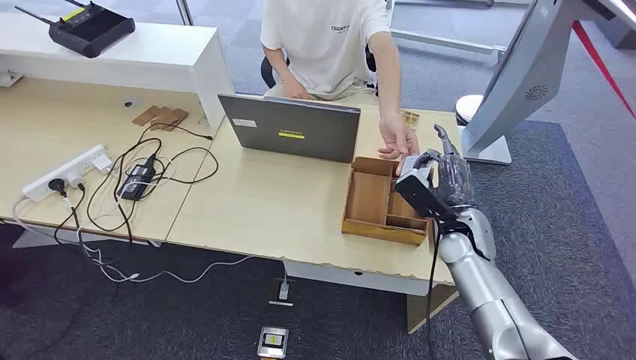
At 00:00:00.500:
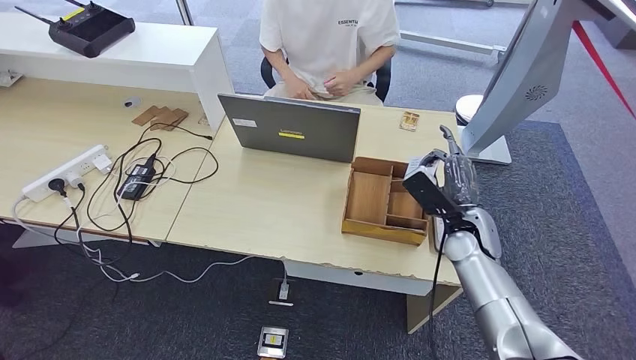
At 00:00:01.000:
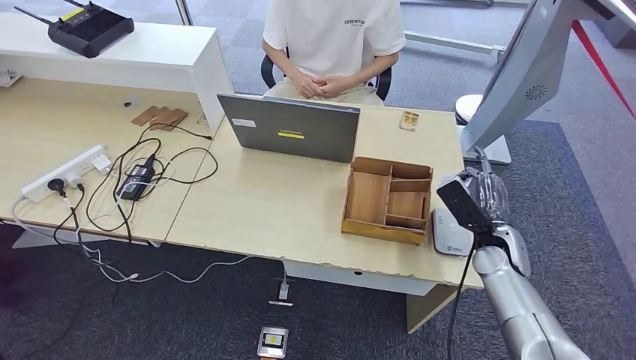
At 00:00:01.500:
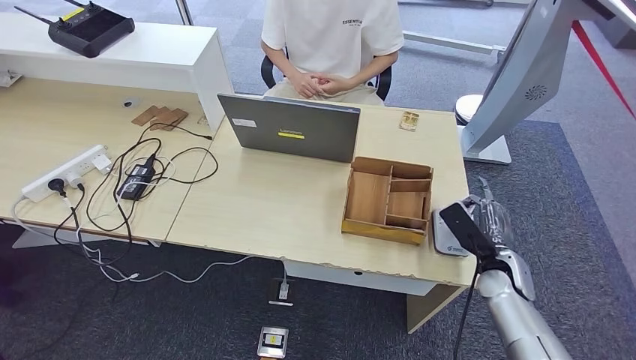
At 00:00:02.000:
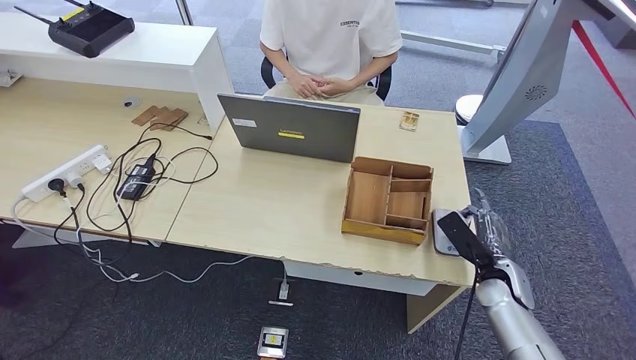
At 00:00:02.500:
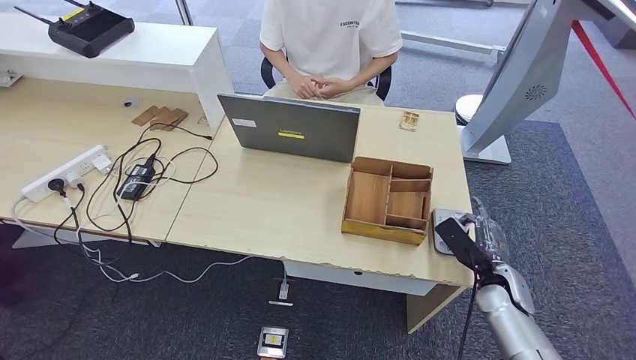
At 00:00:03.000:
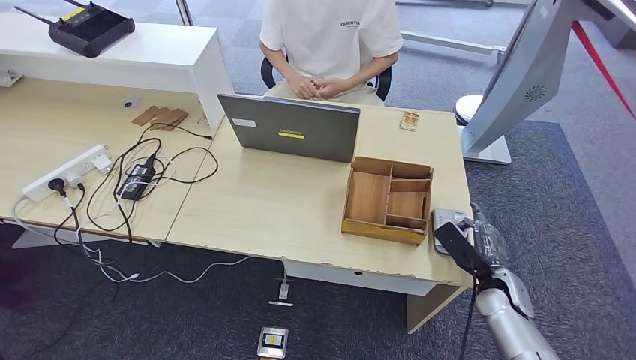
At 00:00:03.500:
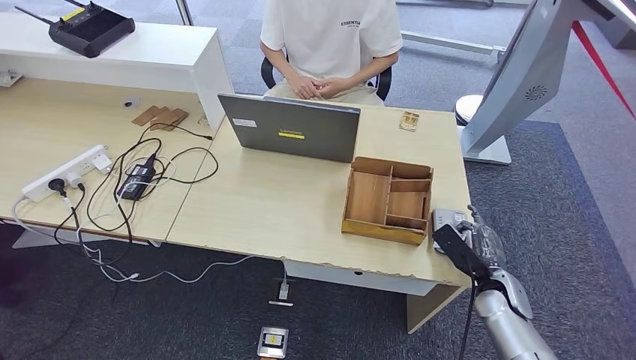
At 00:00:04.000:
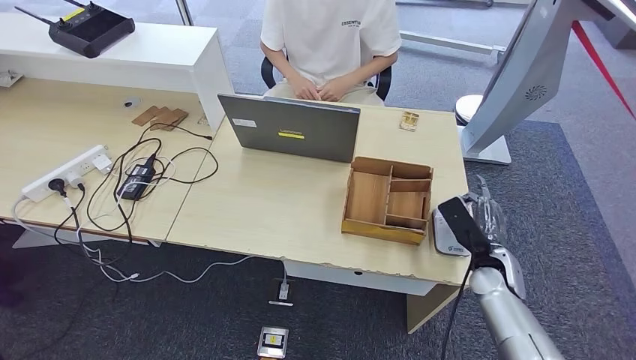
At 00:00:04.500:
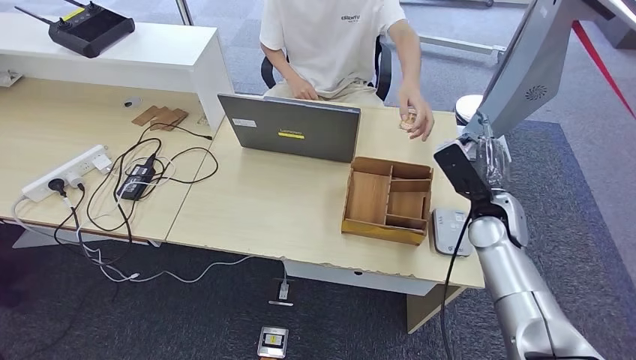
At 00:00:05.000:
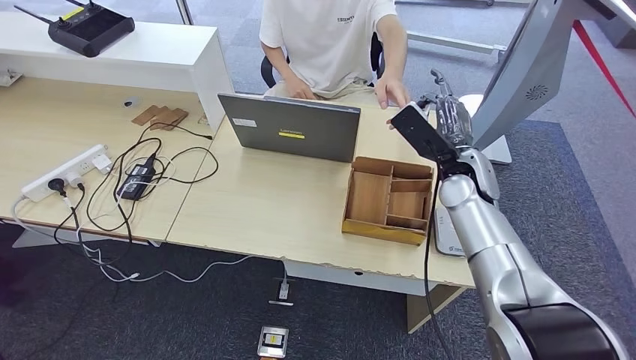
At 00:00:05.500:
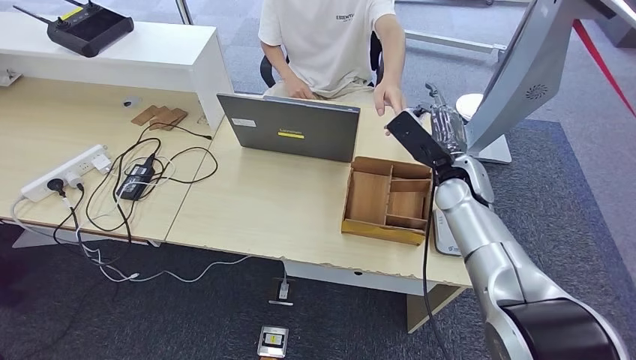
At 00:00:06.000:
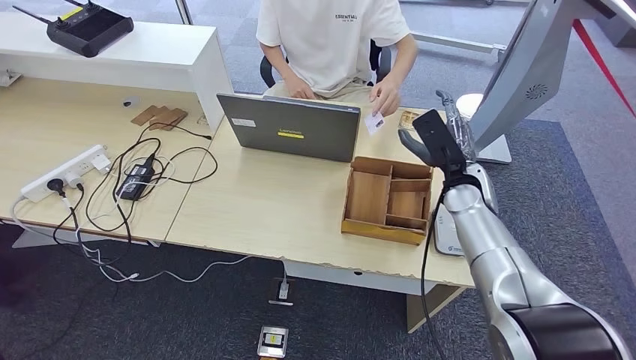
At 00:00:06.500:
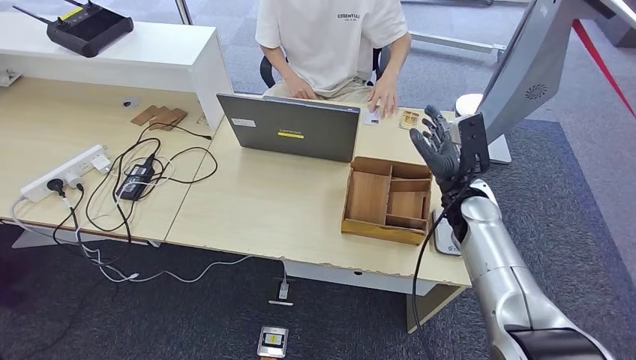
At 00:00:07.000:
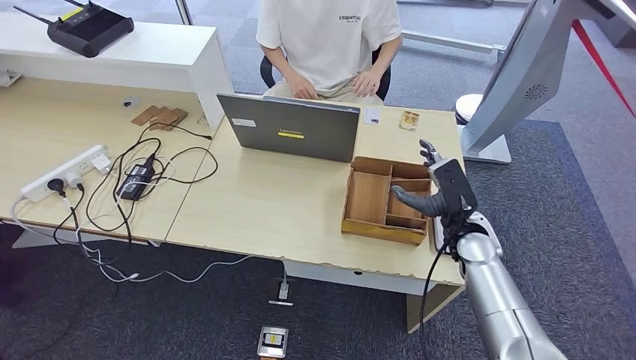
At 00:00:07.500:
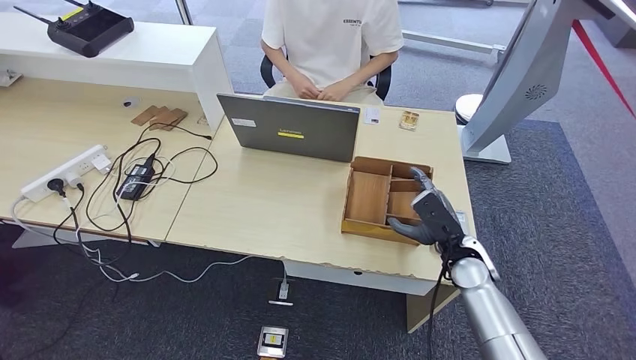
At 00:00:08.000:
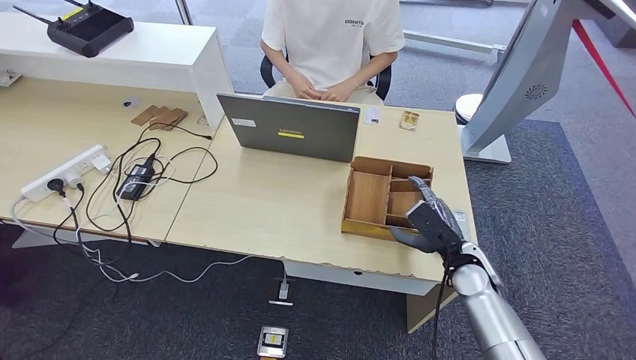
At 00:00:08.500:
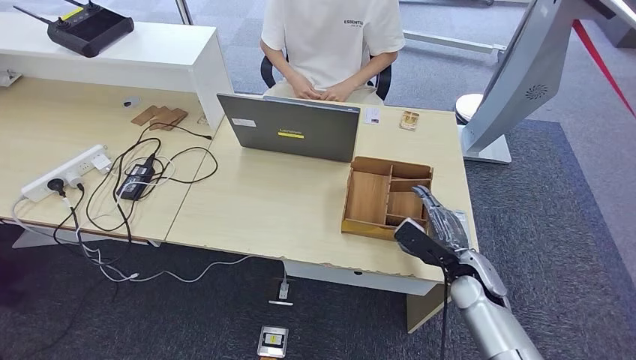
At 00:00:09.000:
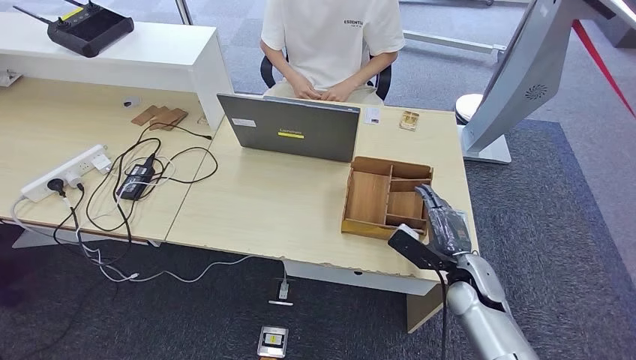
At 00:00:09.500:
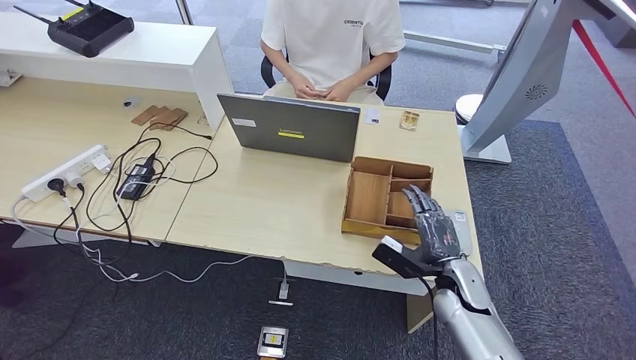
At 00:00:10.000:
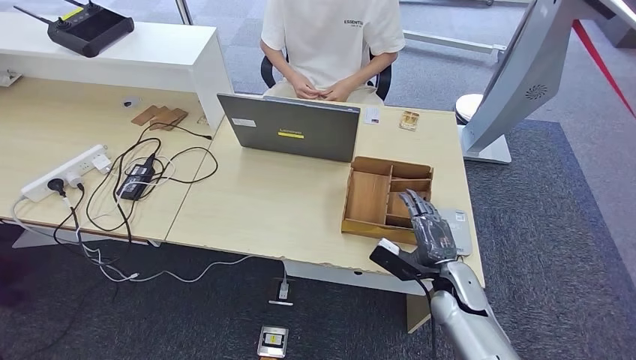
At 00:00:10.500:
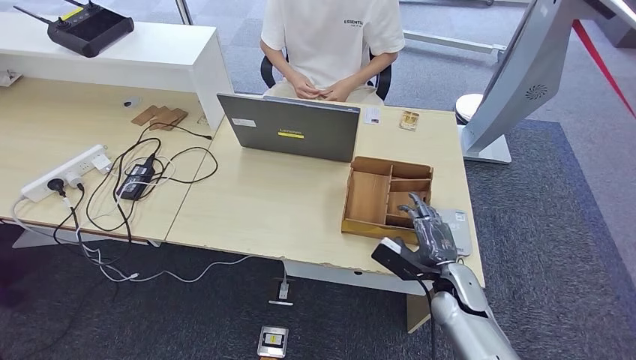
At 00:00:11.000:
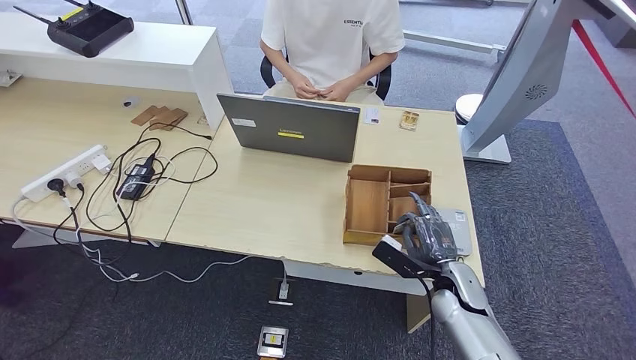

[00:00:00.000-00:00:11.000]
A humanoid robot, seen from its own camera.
Step, 00:00:00.000 to 00:00:00.500: Take the ID card from the person's hand.
Step, 00:00:01.000 to 00:00:03.500: Place the ID card on the card reader.
Step, 00:00:04.500 to 00:00:06.500: Hand the ID card to the person.
00:00:02.000 to 00:00:03.500: The hands stay close to where they were, moving slightly.
00:00:03.500 to 00:00:05.500: The right hand shifts about 25 cm upward, forward and to the left.
00:00:05.500 to 00:00:07.500: The right hand moves downward and backward, roughly 15 cm.
00:00:09.000 to 00:00:11.000: The hands move only a little.

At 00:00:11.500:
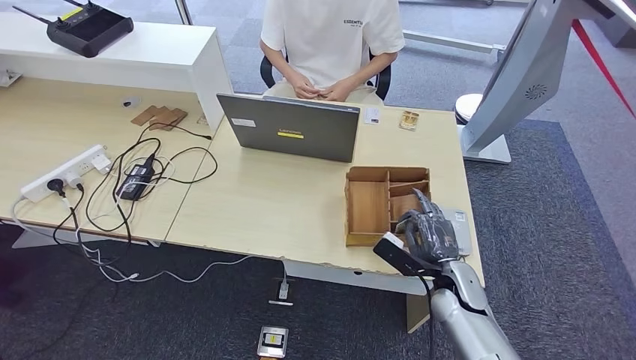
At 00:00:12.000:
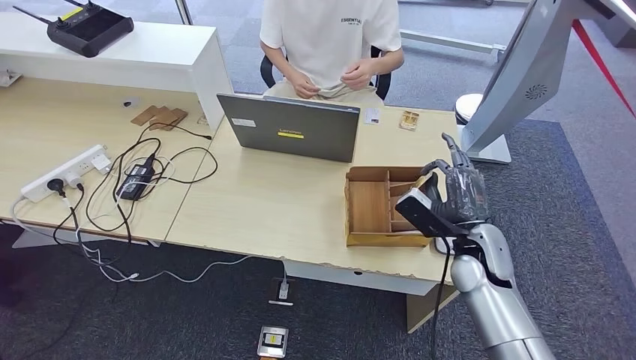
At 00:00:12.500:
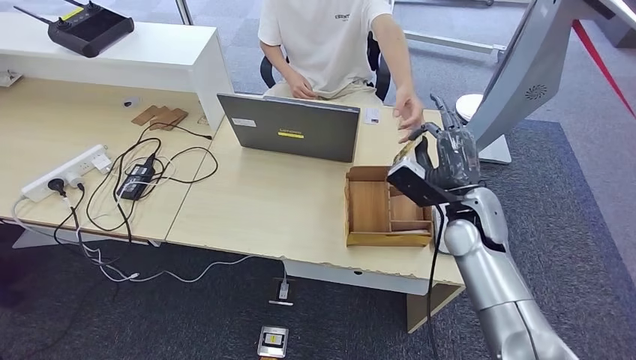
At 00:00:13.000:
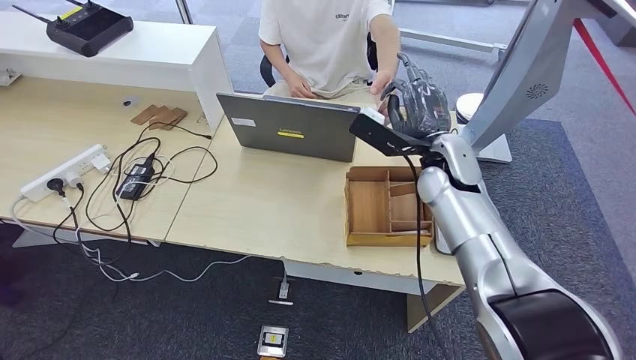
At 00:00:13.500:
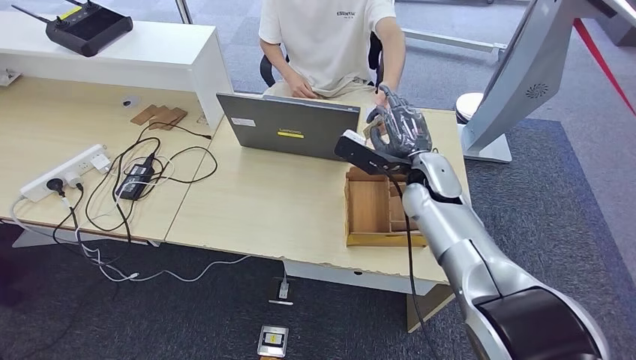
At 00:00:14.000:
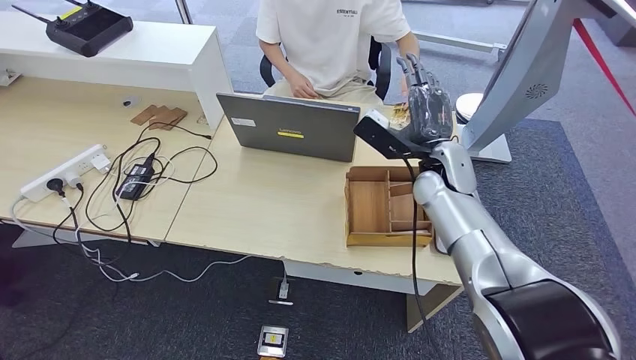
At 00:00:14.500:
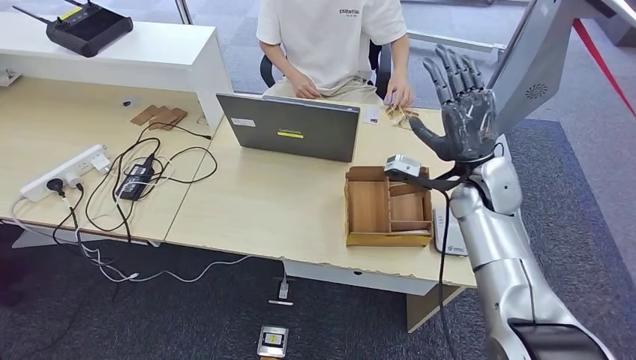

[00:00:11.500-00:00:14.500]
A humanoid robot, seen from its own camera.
Step, 00:00:12.500 to 00:00:14.500: Hand the room key to the person.
00:00:11.500 to 00:00:13.000: The right hand travels upward and forward by roughly 25 cm, while the left hand moves approximately 5 cm.
00:00:13.000 to 00:00:14.500: The right hand is displaced to the right by roughly 5 cm.
